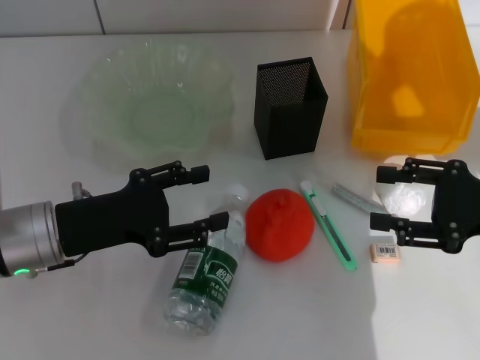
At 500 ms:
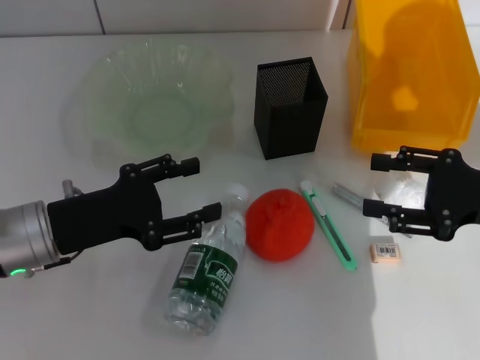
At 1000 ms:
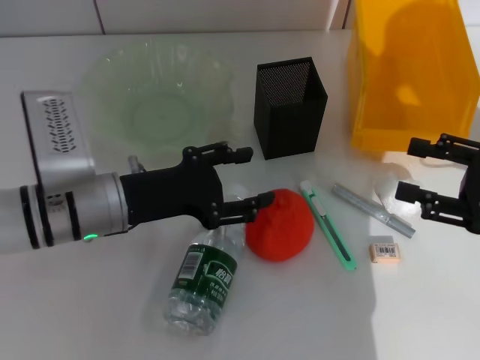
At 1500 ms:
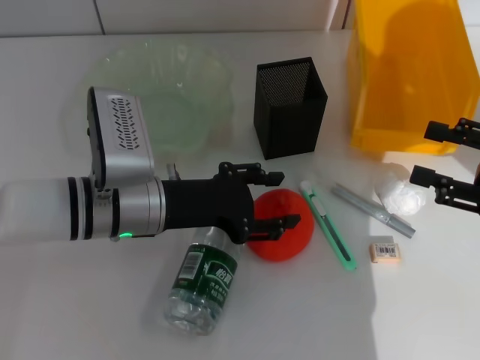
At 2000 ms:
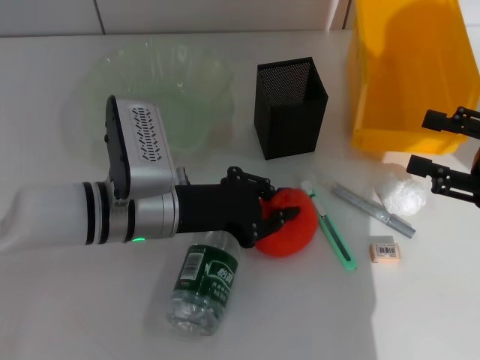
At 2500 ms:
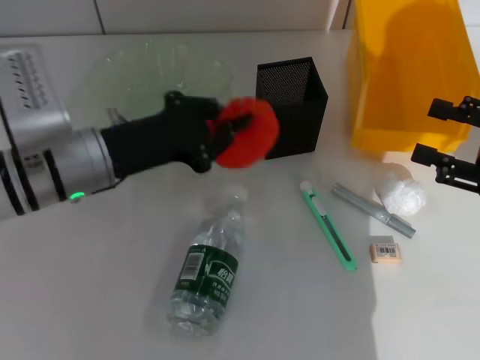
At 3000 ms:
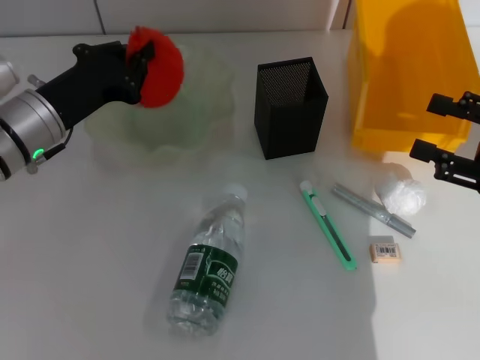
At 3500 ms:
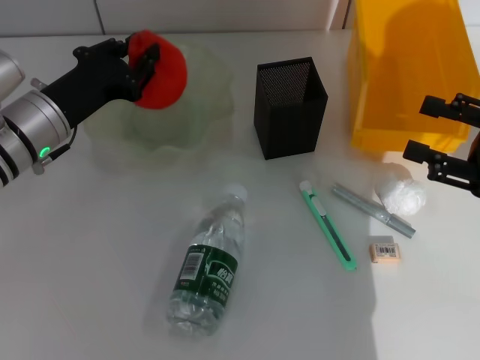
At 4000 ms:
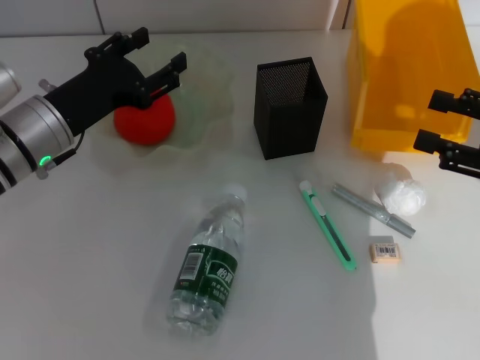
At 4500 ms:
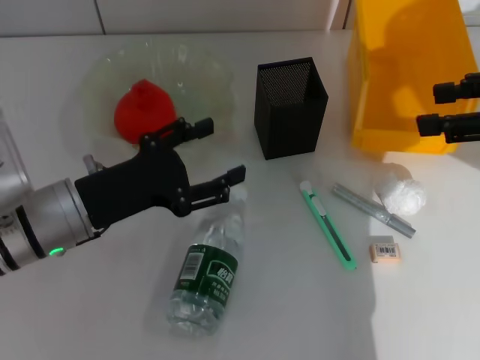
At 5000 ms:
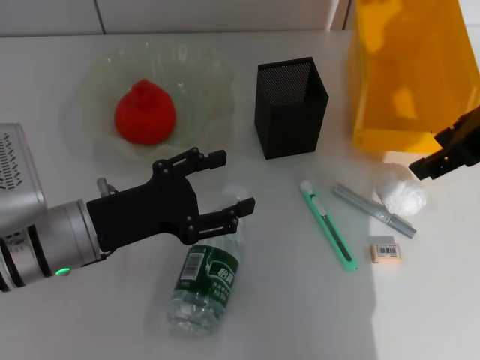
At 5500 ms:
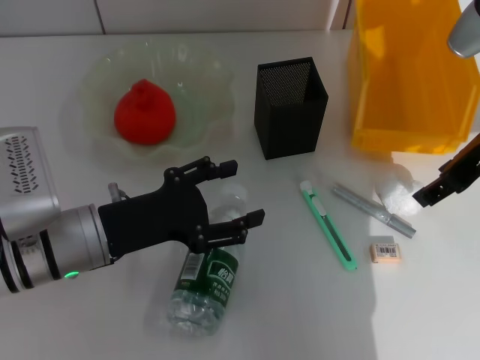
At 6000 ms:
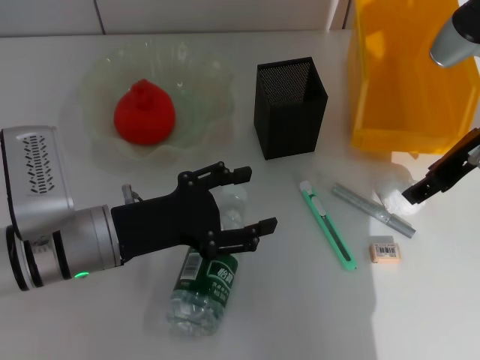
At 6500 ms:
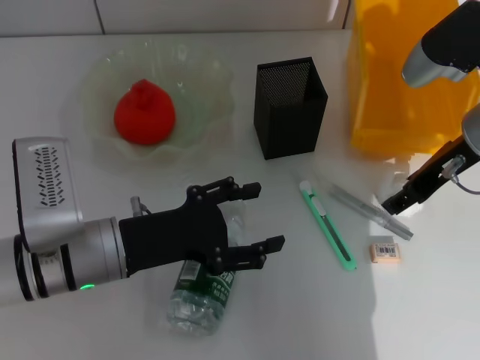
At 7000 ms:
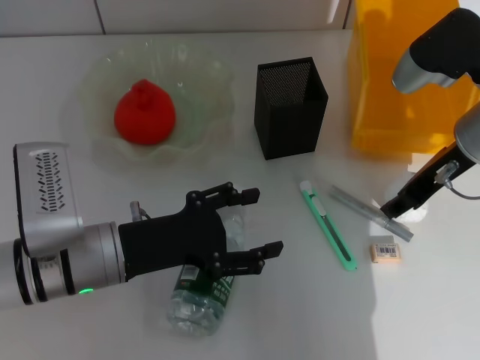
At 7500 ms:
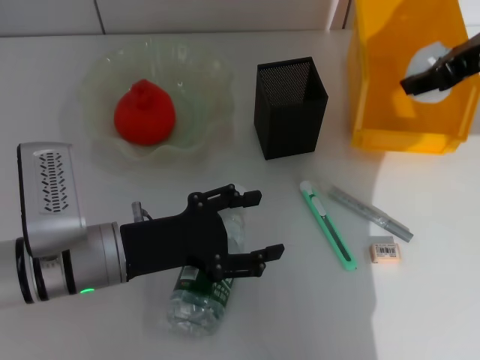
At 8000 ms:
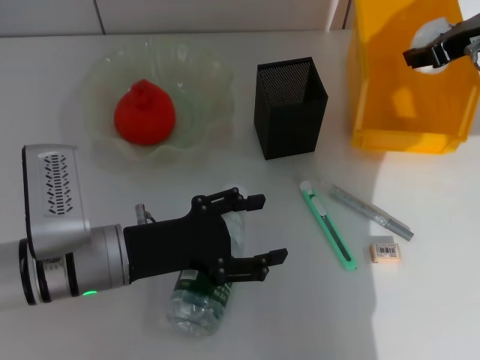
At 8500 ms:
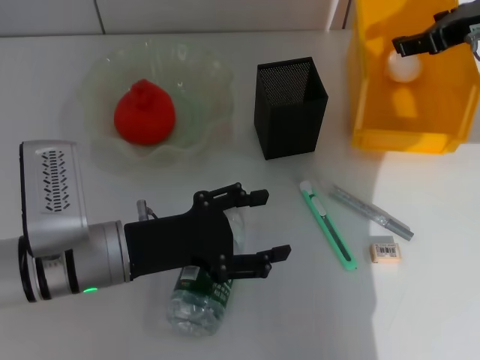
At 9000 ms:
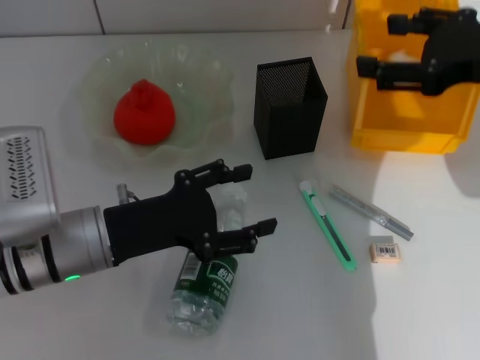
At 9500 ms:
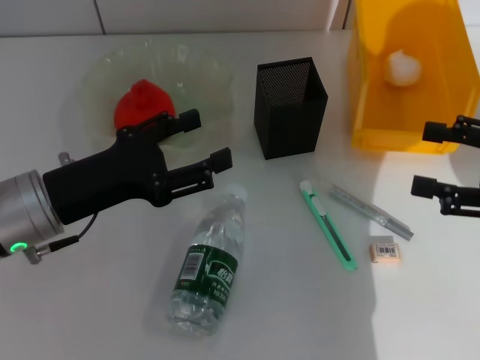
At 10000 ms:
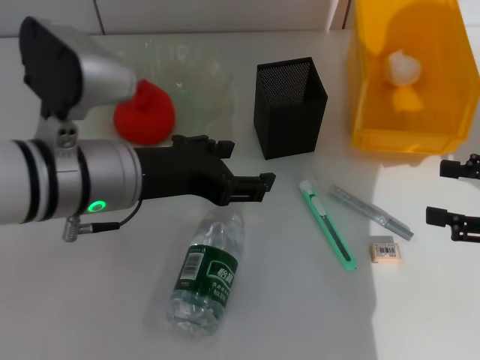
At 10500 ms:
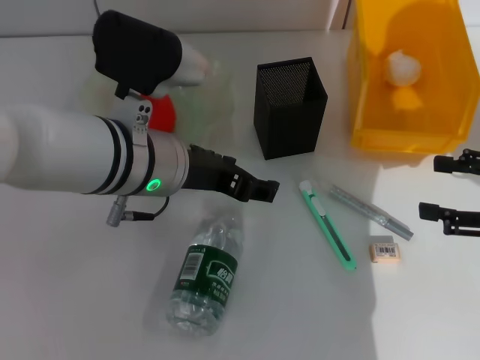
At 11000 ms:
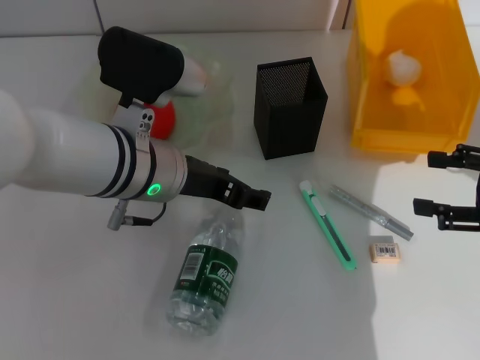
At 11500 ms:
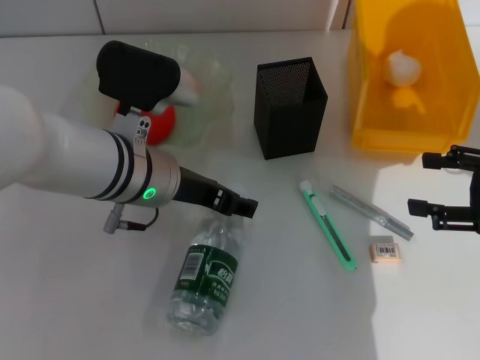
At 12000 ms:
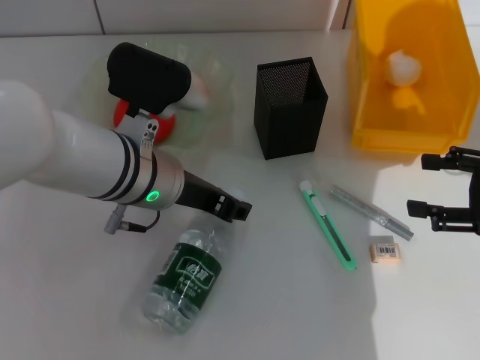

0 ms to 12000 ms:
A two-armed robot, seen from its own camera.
Step, 0 ms to 1500 ms: Grab the orange with the left hand.
Step, 2000 ms to 3500 ms: Place the orange into the fruit bowl with the left hand.
Step, 4500 ms to 7000 ms: Grab the paper ball with the right hand.
Step, 7500 ms to 8500 ms: Place the paper ball into the trash can with the right hand.
0 ms to 2000 ms: The left gripper goes approximately 10 cm to the right, and closes up.
2000 ms to 4000 ms: The left gripper is displaced to the left by about 10 cm, and closes, then reopens.
4000 ms to 6000 ms: The right gripper shifts some 15 cm to the left, forward and upward. The left gripper goes some 10 cm backward.
6000 ms to 8000 ms: The right gripper shifts by about 5 cm.
8000 ms to 10000 ms: The right gripper moves backward, to the right and downward, some 20 cm, while the left gripper is displaced upward by approximately 10 cm.
10000 ms to 12000 ms: The left gripper moves approximately 5 cm.

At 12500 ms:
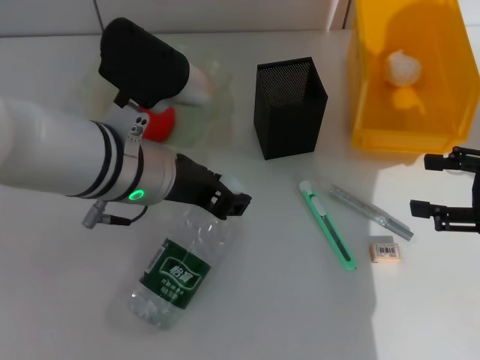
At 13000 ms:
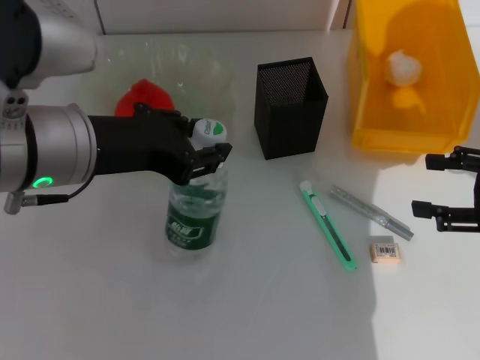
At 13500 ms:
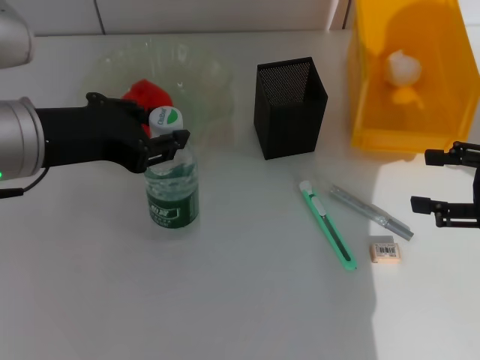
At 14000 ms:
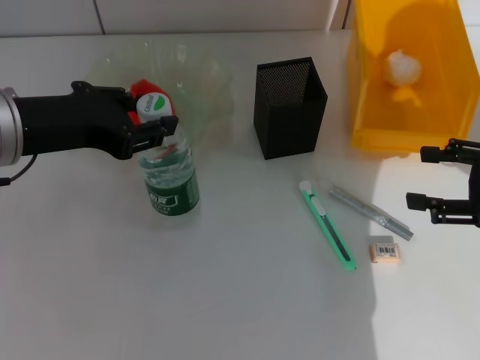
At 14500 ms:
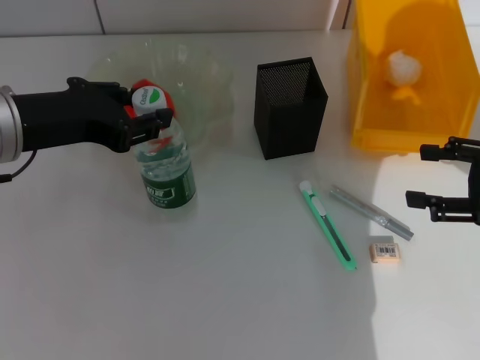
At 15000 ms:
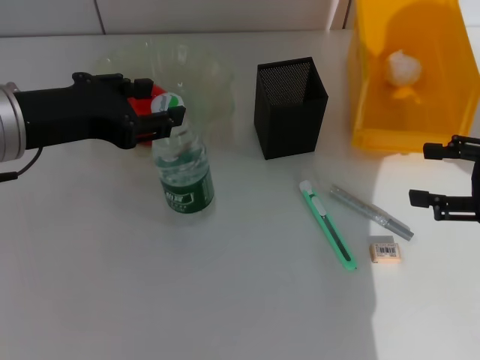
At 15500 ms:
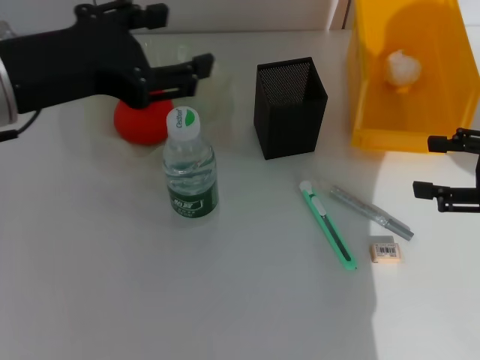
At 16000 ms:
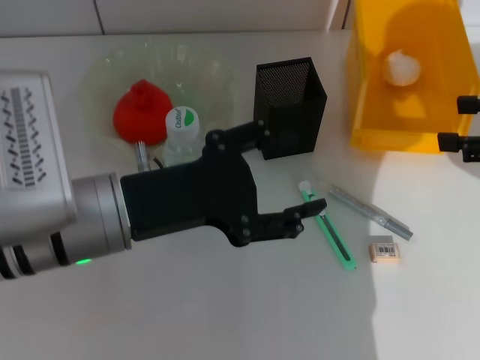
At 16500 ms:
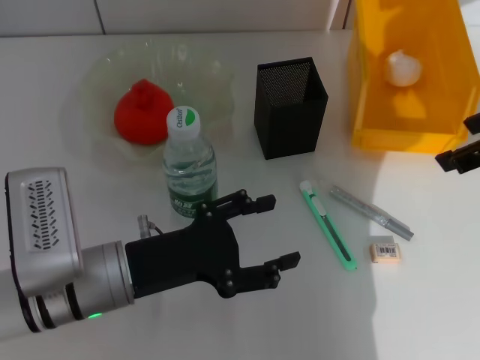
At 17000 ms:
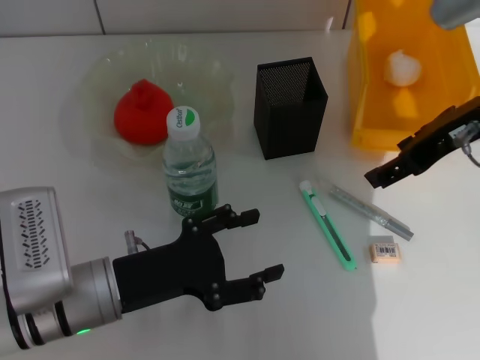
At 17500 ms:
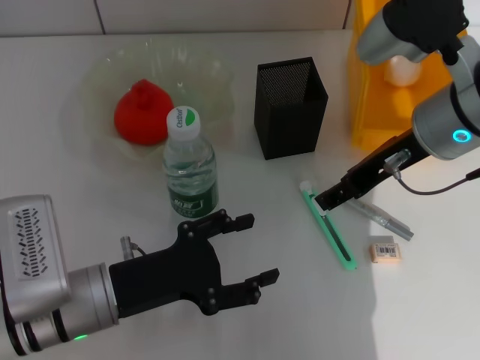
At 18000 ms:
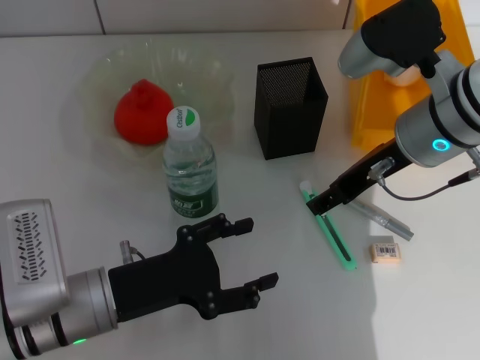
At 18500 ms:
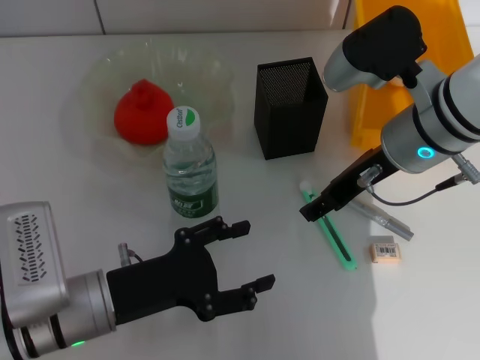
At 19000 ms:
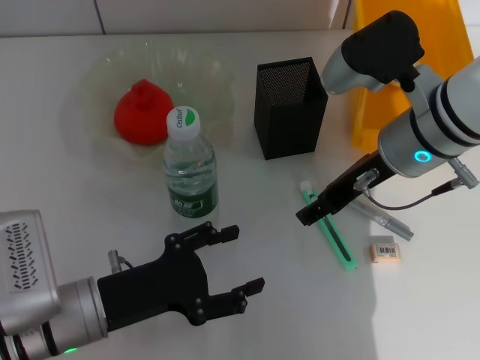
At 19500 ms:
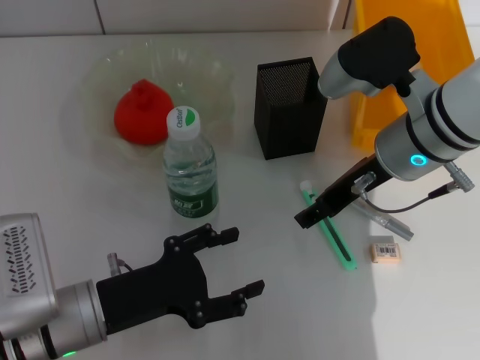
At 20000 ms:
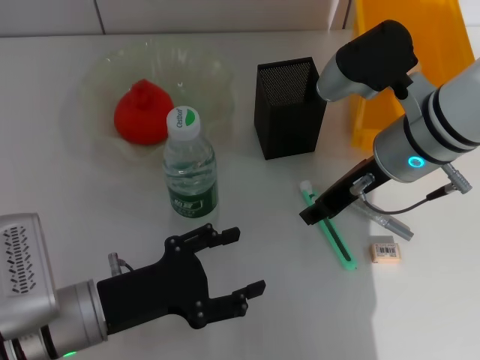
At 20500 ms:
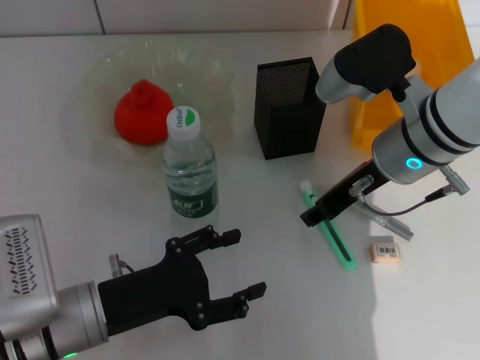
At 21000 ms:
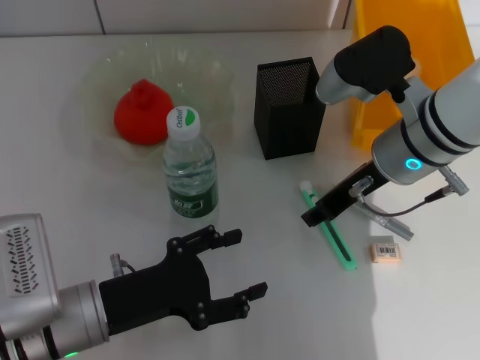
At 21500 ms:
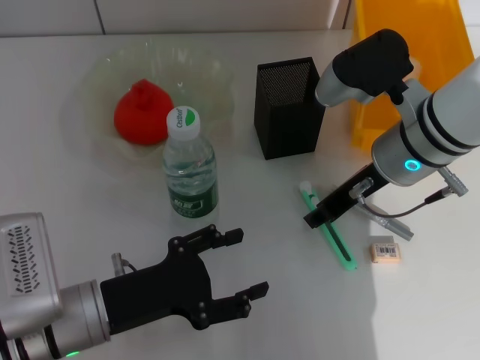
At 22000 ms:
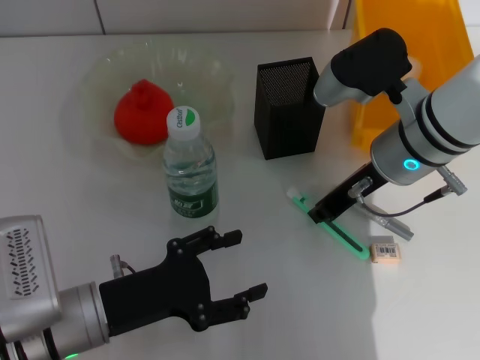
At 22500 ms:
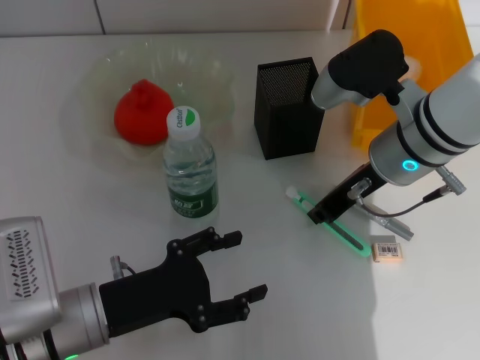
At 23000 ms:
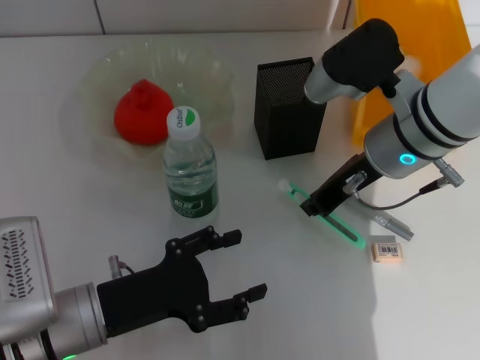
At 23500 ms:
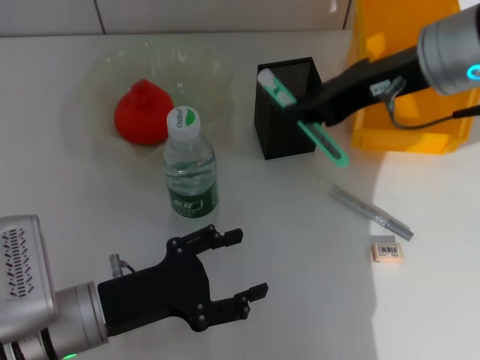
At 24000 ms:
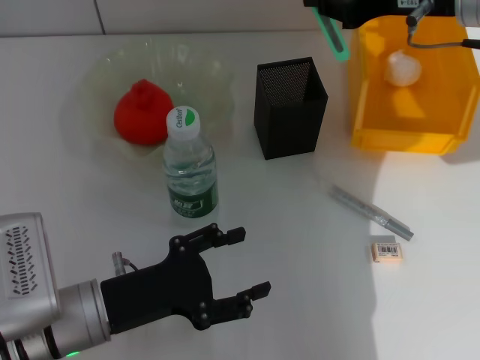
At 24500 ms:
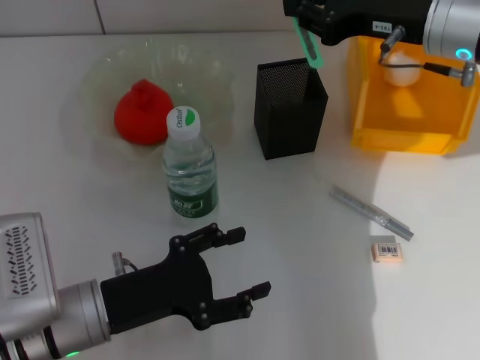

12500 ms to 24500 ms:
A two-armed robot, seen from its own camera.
Step, 12500 ms to 15000 ms: Place the water bottle on the table with the left hand.
Step, 15500 ms to 22500 ms: Grab the blue utility knife with the right hand.
12500 ms to 14500 ms: The left gripper shifts approximately 15 cm to the left and upward.
14500 ms to 16500 ms: The right gripper shifts about 15 cm upward and to the left; the left gripper heads downward and backward, covering about 15 cm, and opens.
16500 ms to 18500 ms: The right gripper shifts roughly 15 cm to the left and downward.
18500 ms to 20500 ms: The right gripper closes its fingers.
20500 ms to 22500 ms: The right gripper closes up.
22500 ms to 24500 ms: The right gripper goes roughly 10 cm upward and to the right.

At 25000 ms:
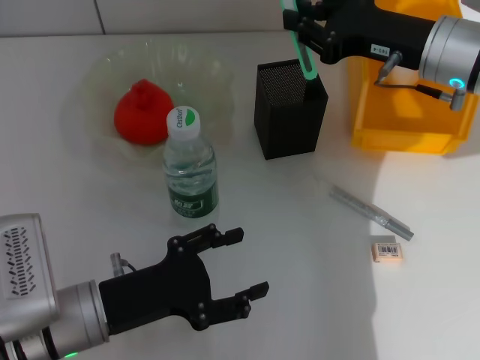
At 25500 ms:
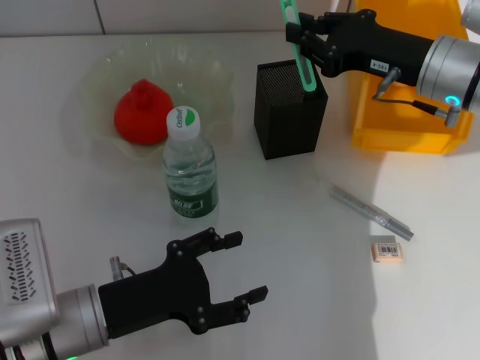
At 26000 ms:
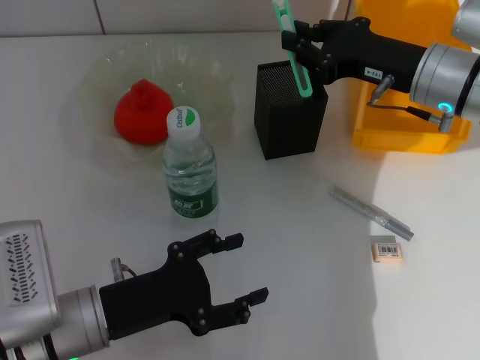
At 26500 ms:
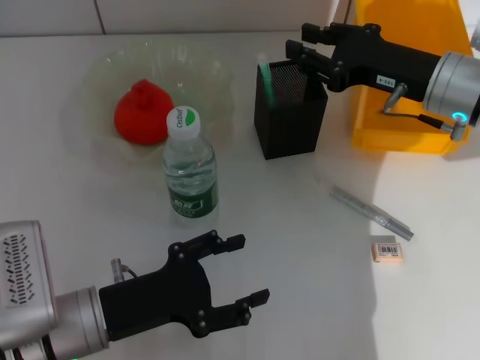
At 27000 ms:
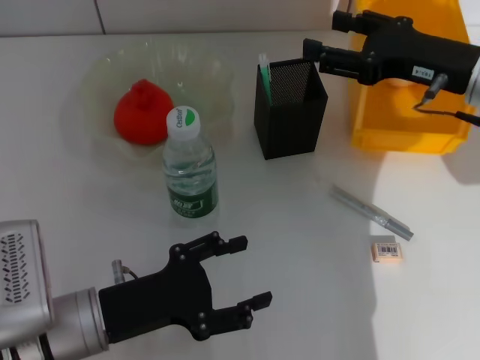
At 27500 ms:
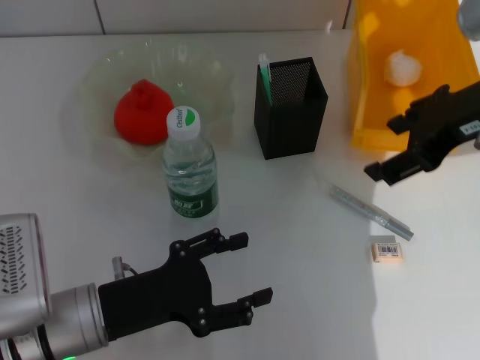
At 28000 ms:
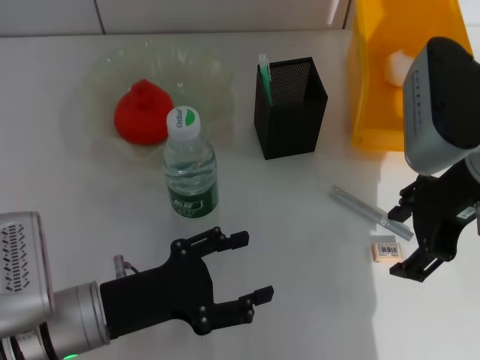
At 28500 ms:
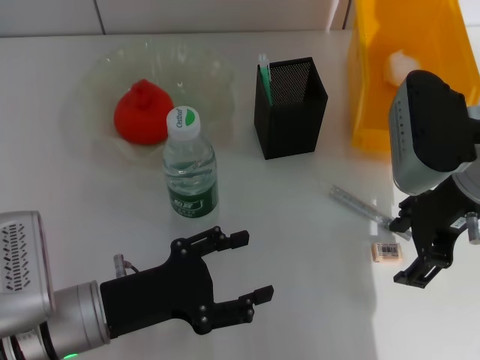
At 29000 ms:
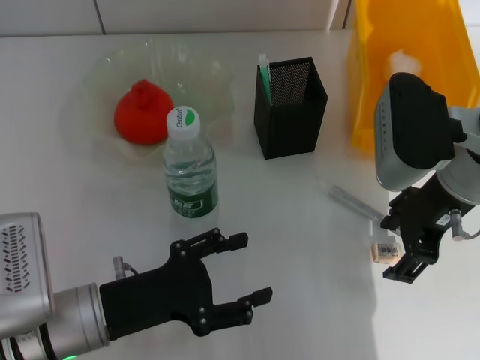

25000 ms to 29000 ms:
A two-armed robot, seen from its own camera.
25000 ms to 27000 ms: The right gripper opens.
27000 ms to 29000 ms: The right gripper reaches roughly 5 cm upward, then returns.
